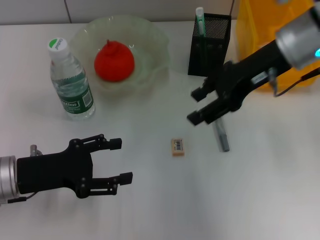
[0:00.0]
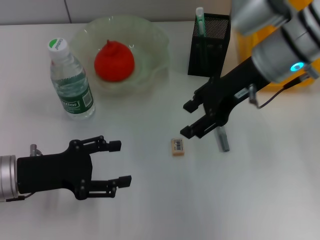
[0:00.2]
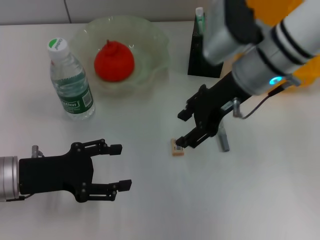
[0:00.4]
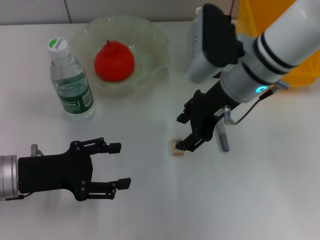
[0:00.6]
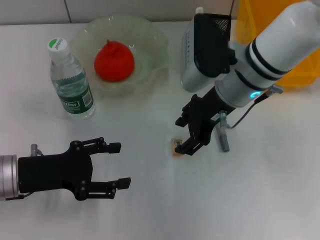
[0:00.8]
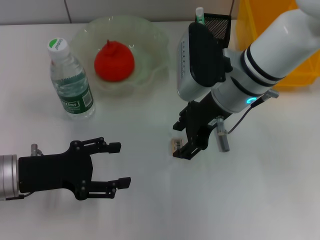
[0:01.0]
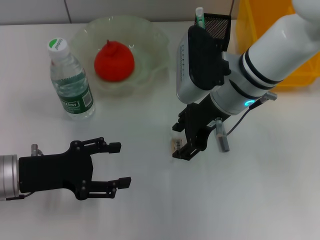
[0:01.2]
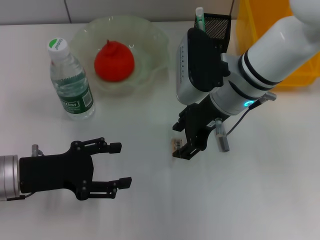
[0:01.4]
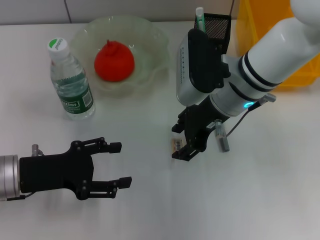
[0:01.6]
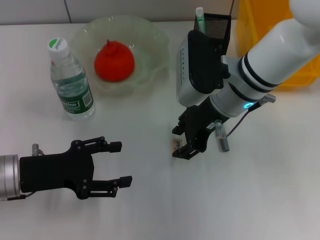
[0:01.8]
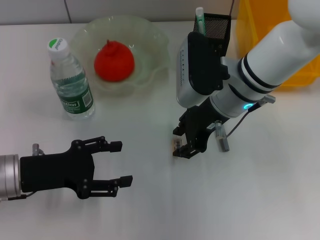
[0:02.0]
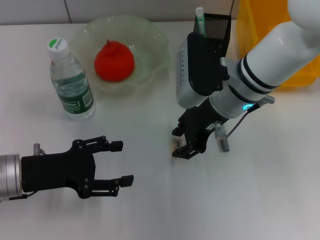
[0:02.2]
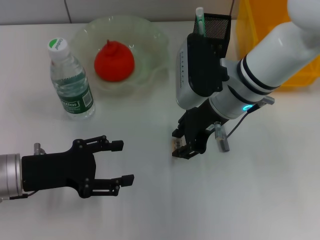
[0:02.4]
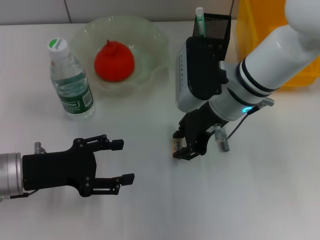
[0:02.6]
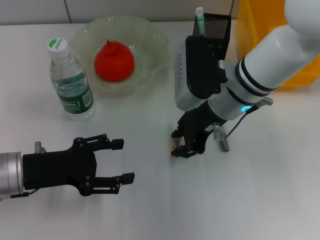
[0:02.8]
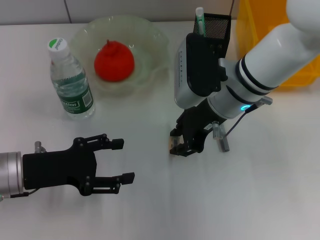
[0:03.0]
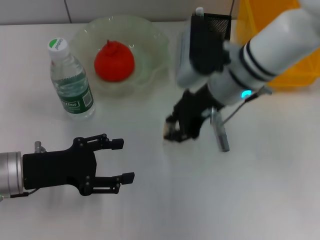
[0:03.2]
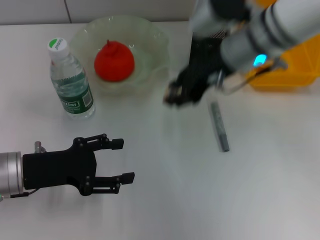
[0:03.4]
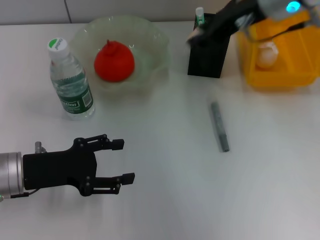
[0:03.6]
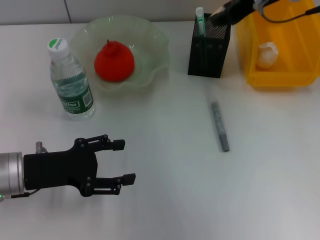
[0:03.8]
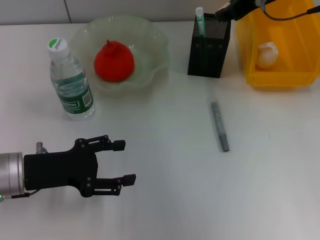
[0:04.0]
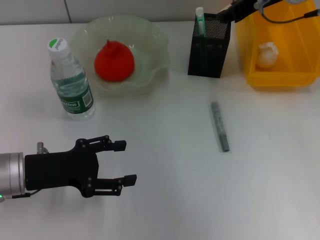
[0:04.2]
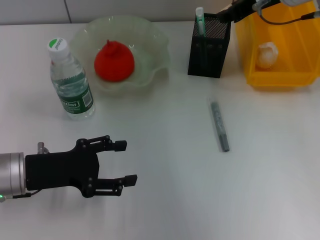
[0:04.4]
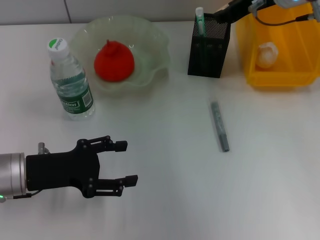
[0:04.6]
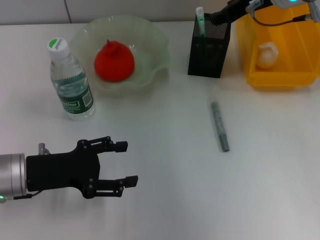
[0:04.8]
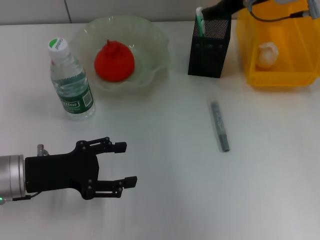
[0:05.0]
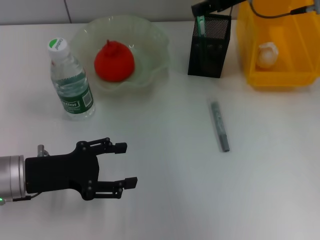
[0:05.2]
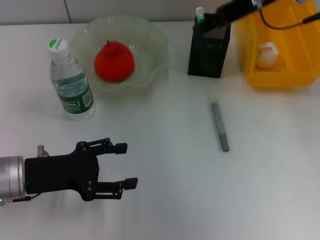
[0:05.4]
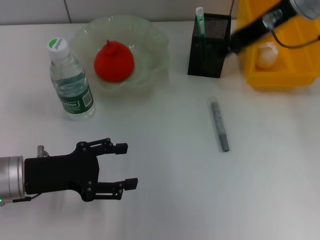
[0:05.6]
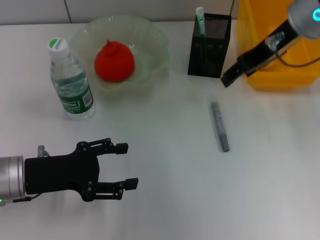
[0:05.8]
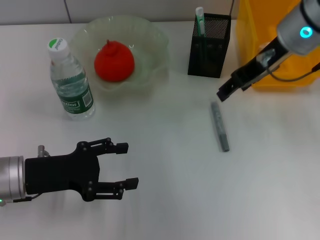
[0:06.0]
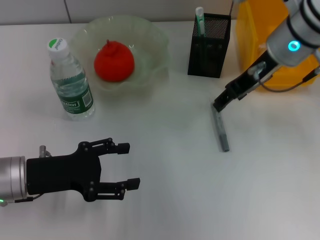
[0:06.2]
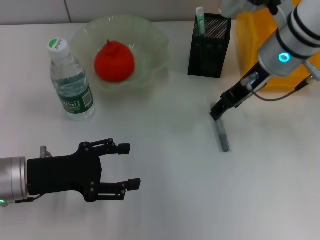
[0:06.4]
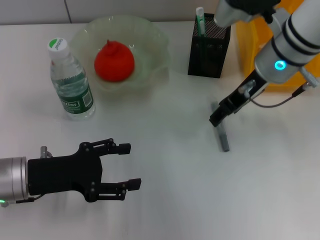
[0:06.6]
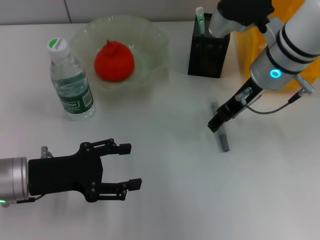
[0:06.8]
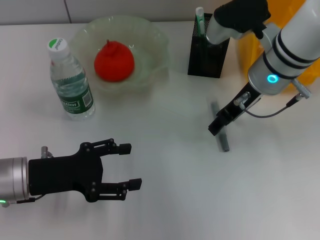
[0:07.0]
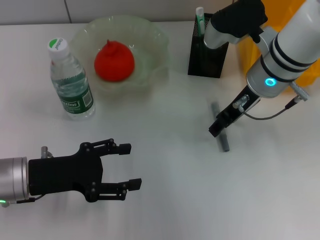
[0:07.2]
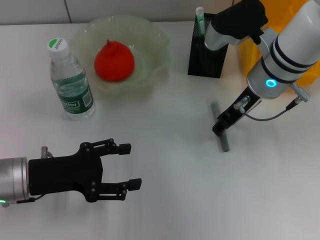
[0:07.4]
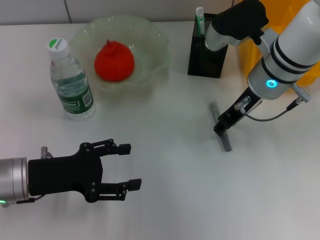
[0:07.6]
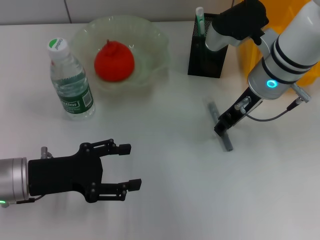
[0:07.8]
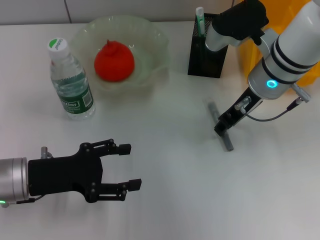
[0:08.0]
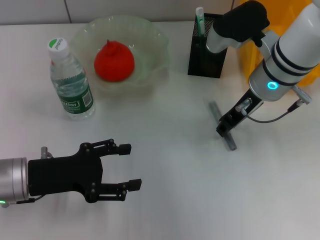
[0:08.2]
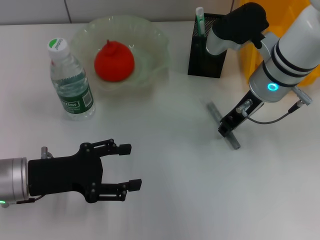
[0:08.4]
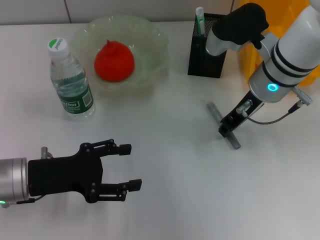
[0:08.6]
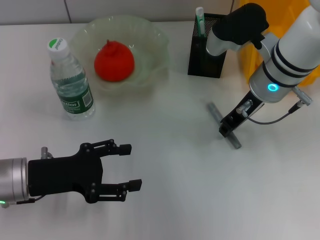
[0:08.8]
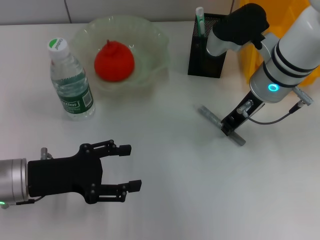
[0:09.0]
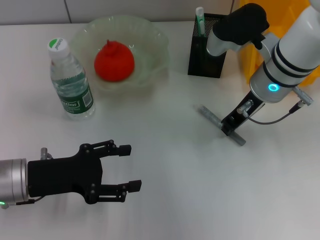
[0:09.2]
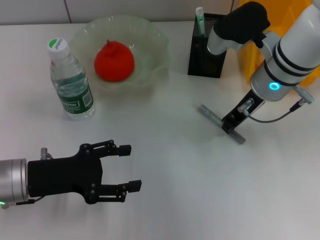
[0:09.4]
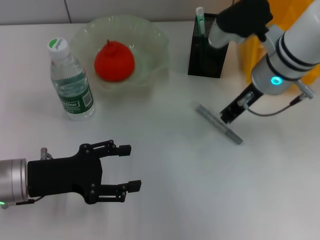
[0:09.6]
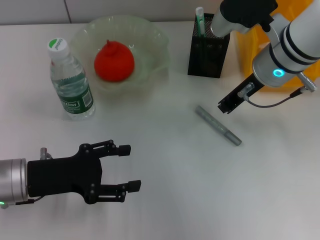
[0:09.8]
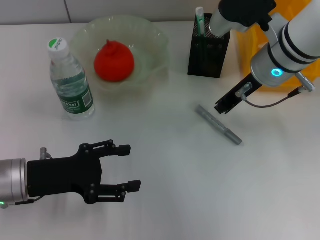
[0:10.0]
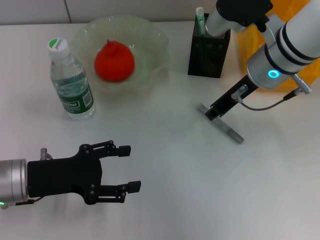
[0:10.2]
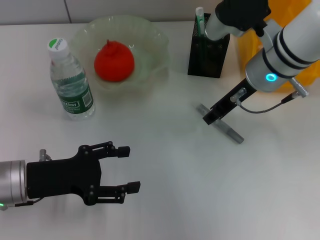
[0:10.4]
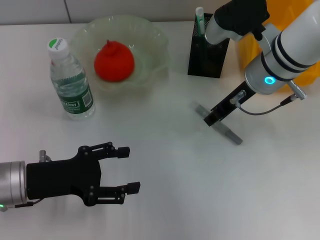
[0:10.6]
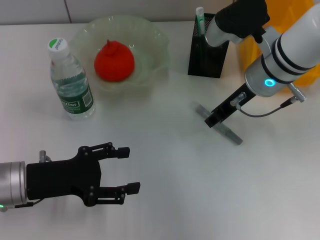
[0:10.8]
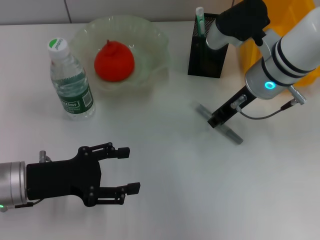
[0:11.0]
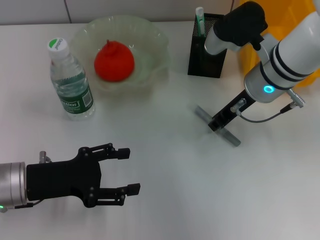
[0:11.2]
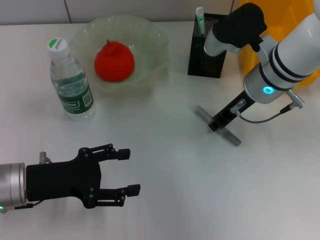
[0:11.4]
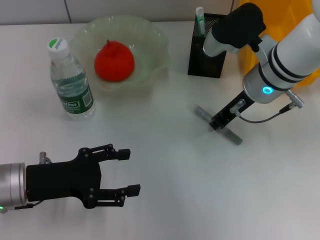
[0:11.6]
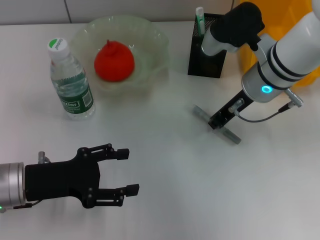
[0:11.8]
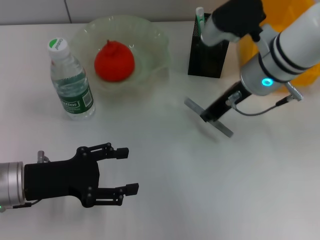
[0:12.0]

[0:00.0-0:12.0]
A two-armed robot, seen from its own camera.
Step, 0:00.0 to 0:02.6: Grab the eraser with the right hand.
Step, 0:02.8 to 0:04.6: Put the eraser into the pen holder with the right hand.
Step, 0:05.0 to 0:11.4: Grab the gray glue with the right hand.
0:00.0 to 0:01.6: The right gripper moves to the left and downward, approximately 10 cm.
0:01.6 to 0:03.0: The right gripper closes its fingers.
0:03.0 to 0:04.4: The right gripper is displaced upward, to the right and forward by some 15 cm.
0:04.4 to 0:06.0: The right gripper opens.
0:06.0 to 0:07.6: The right gripper moves downward, about 5 cm.
0:07.6 to 0:09.0: The right gripper closes up.
0:09.0 to 0:12.0: There are only small adjustments of the grippers.

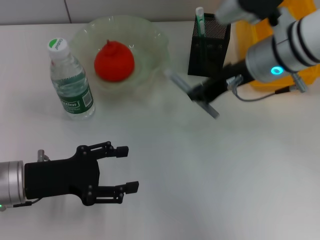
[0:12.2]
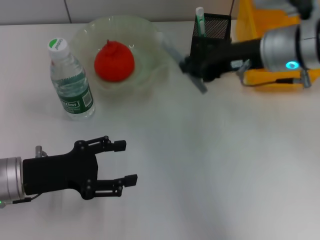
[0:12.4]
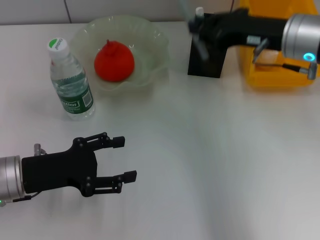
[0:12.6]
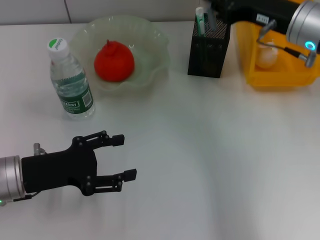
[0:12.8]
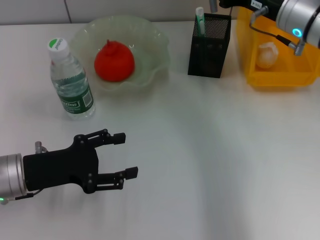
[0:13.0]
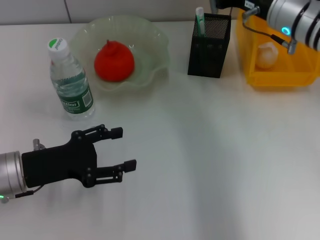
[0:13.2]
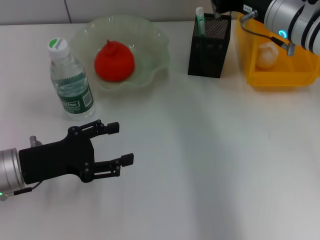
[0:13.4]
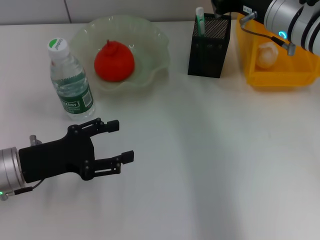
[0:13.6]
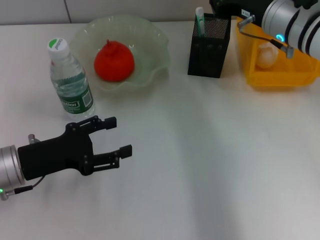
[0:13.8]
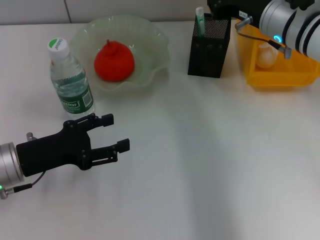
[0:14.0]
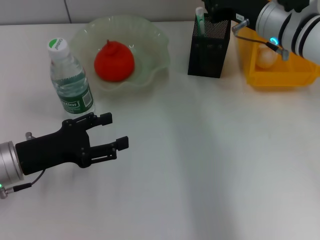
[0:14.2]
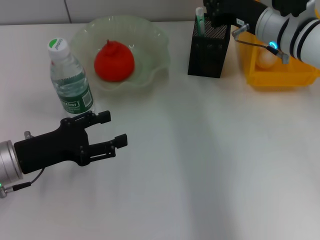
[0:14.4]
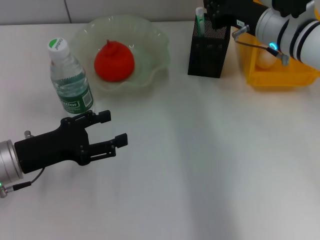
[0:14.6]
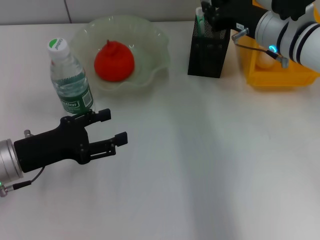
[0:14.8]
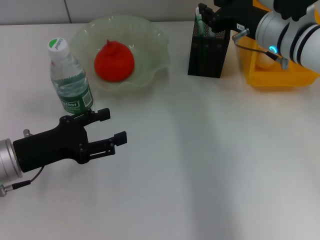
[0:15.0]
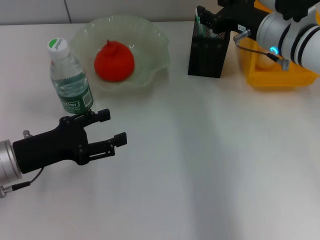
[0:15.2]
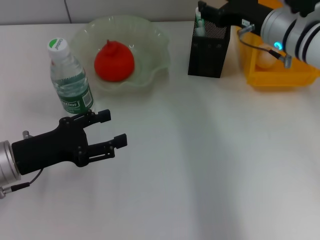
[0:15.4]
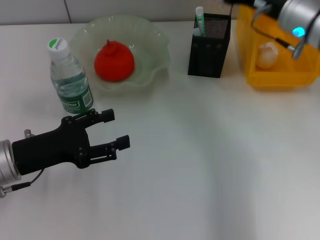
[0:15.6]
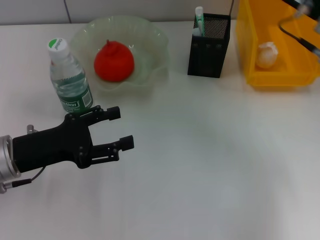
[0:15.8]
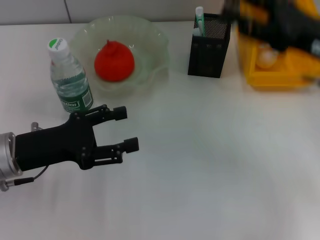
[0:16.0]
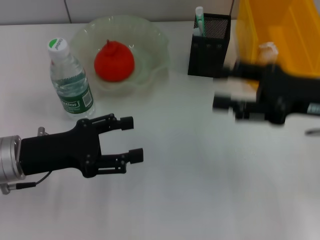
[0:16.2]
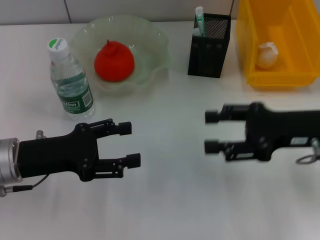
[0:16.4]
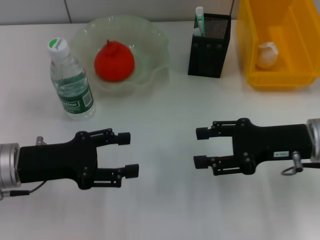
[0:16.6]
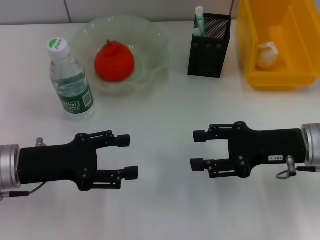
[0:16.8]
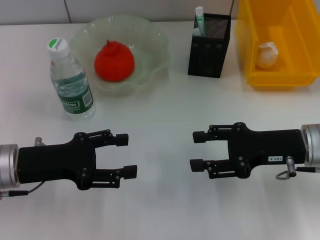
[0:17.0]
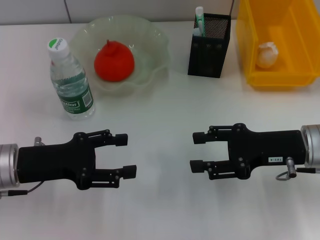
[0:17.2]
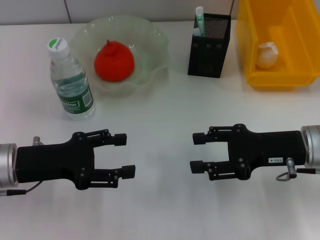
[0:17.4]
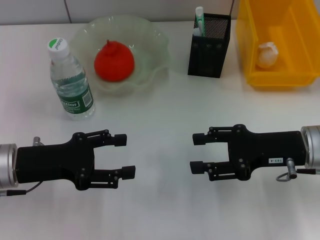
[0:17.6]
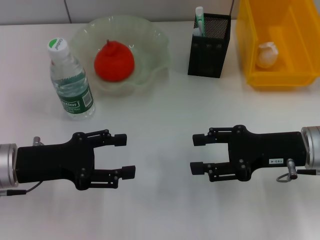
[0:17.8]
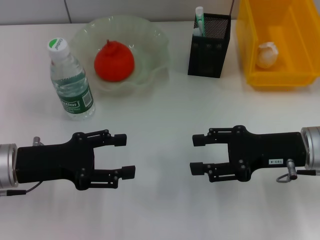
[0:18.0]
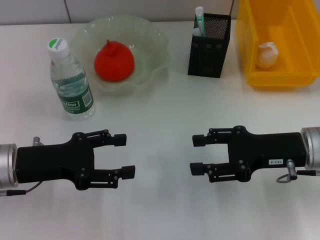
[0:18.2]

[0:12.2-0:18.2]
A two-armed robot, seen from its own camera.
Step, 0:12.2 to 0:14.8: Place the gray glue into the pen holder with the right hand.
0:12.2 to 0:13.8: The right gripper changes place by about 5 cm.
0:13.8 to 0:15.2: The grippers make only small movements.
0:15.2 to 0:16.6: The right gripper shifts approximately 15 cm backward and to the right, and opens up.
0:16.6 to 0:18.2: Both grippers stay about where they are.

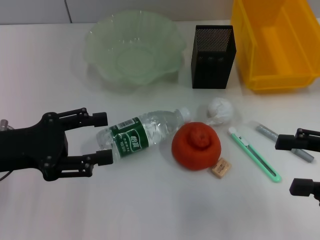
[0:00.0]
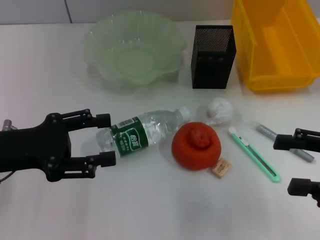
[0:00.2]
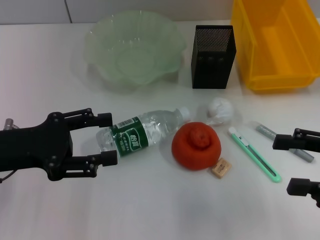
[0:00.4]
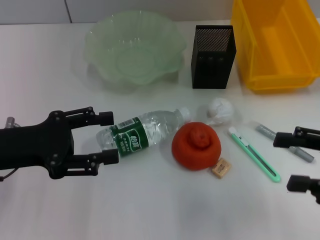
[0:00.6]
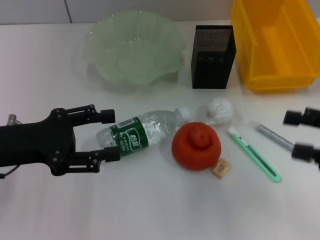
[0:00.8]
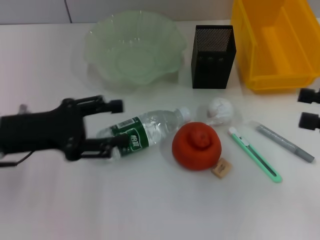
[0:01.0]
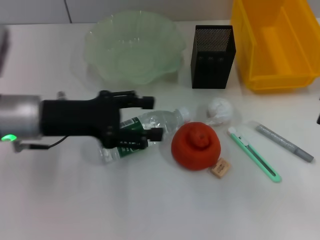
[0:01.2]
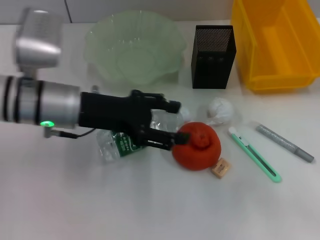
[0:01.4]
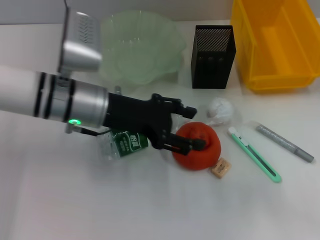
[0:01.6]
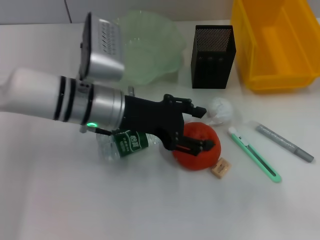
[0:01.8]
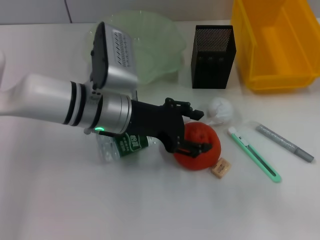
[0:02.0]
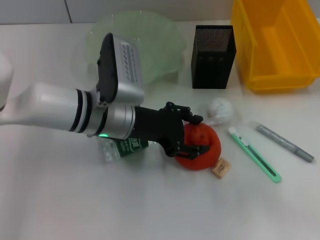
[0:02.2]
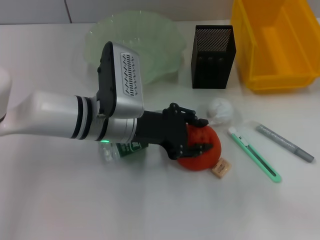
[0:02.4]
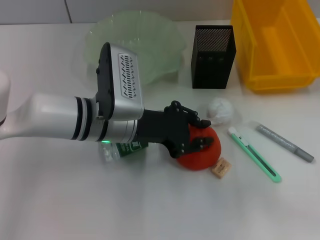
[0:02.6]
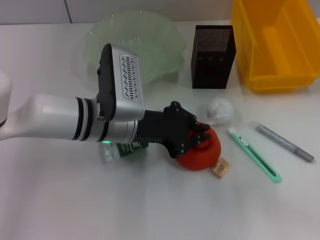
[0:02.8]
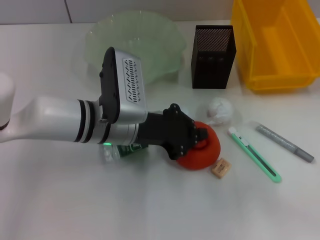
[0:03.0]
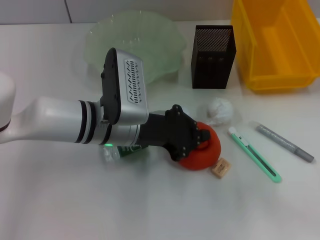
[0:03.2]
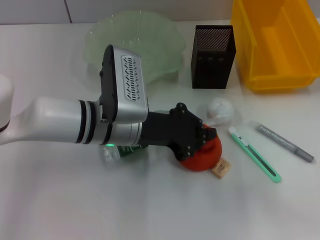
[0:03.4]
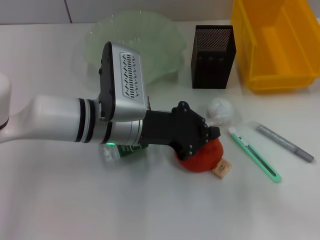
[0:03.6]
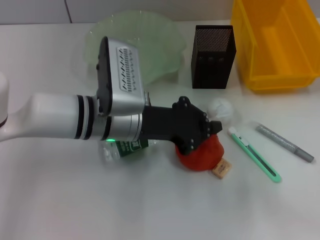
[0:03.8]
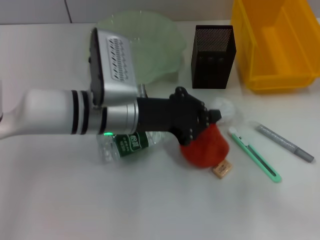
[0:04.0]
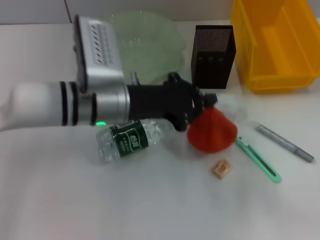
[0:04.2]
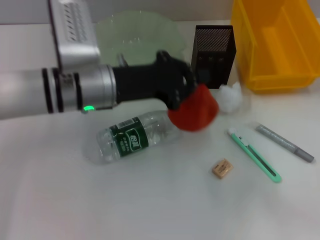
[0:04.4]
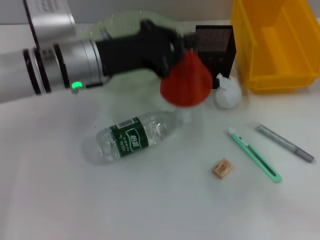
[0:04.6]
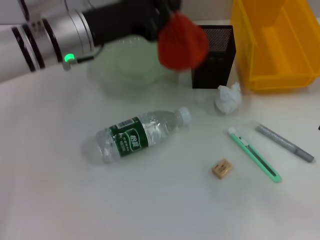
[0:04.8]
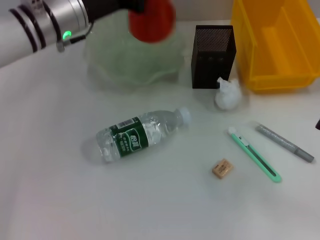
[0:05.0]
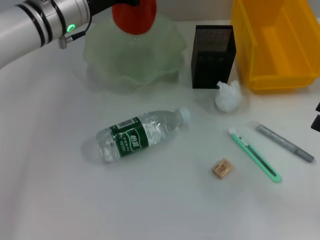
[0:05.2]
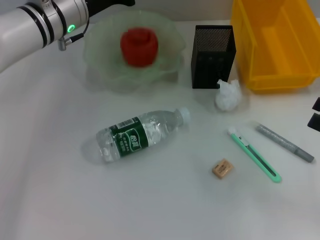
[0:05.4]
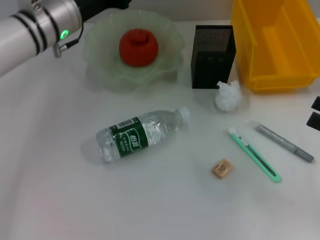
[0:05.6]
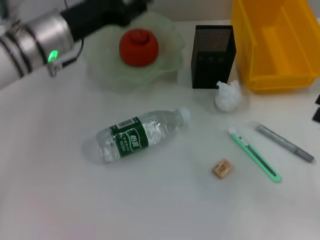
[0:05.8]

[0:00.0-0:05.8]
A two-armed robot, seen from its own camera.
Step, 0:00.0 to 0:03.0: Grab the orange with the left hand.
Step, 0:03.2 to 0:05.4: Place the orange into the fruit bowl with the left hand.
0:00.0 to 0:01.4: The right gripper travels to the right by roughly 5 cm. The left gripper heads to the right and forward, covering approximately 10 cm.
0:01.4 to 0:02.8: The left gripper is displaced to the right by about 10 cm, and closes up.
0:04.4 to 0:05.8: The left gripper moves to the left and forward, some 10 cm, and opens up.
